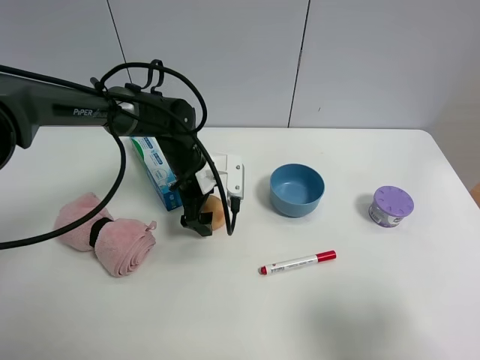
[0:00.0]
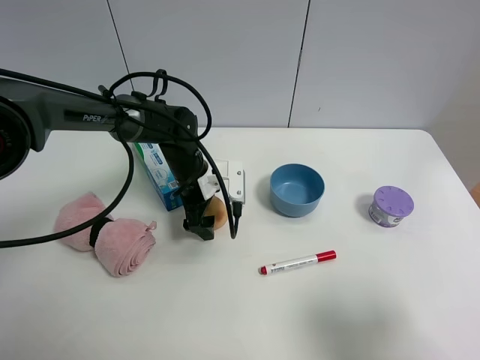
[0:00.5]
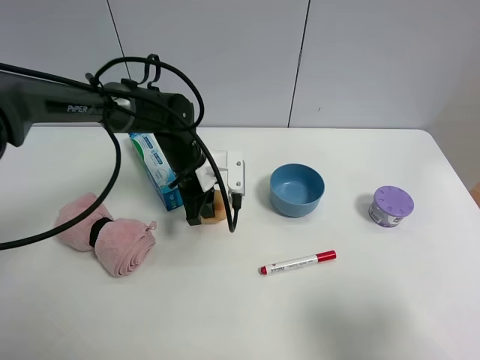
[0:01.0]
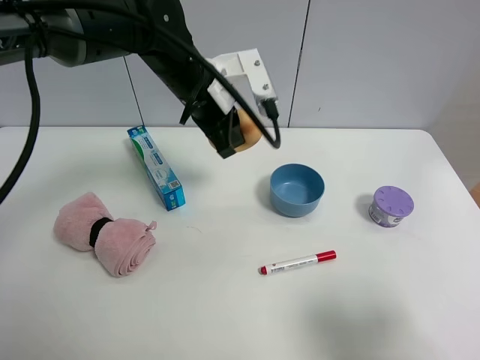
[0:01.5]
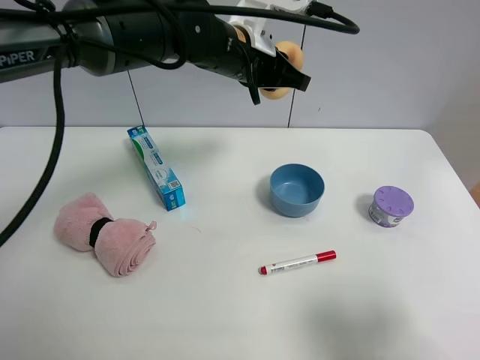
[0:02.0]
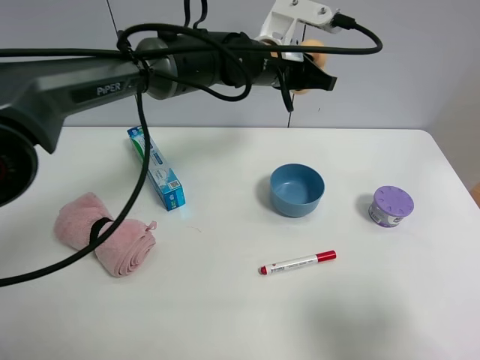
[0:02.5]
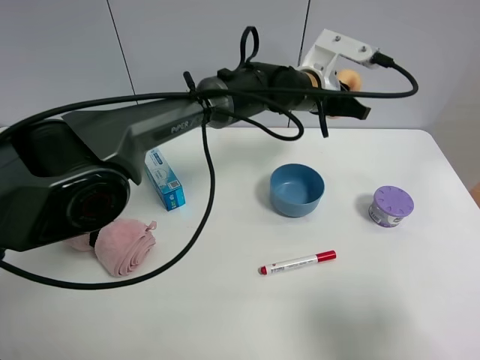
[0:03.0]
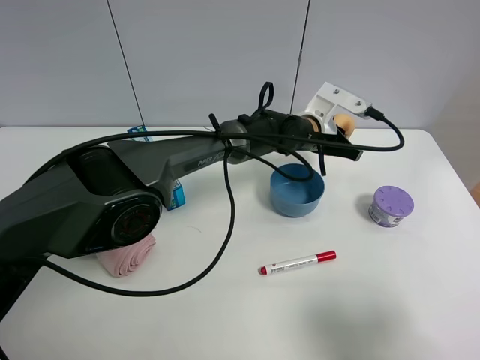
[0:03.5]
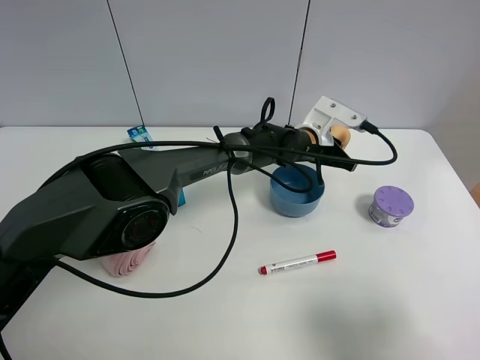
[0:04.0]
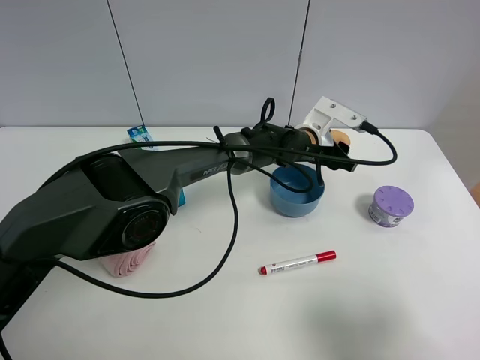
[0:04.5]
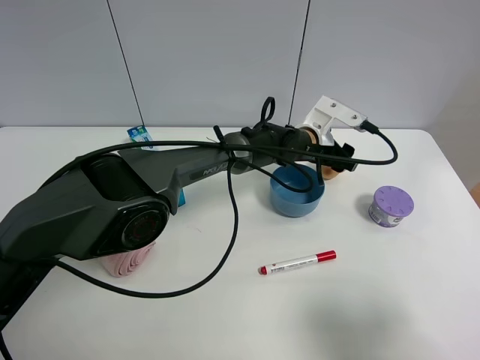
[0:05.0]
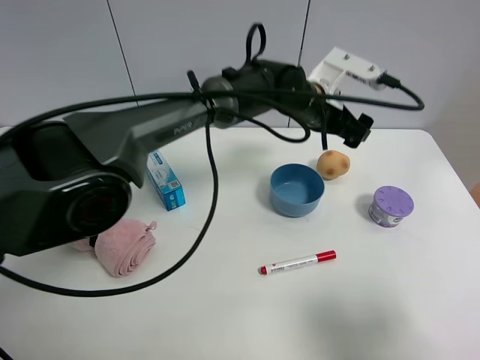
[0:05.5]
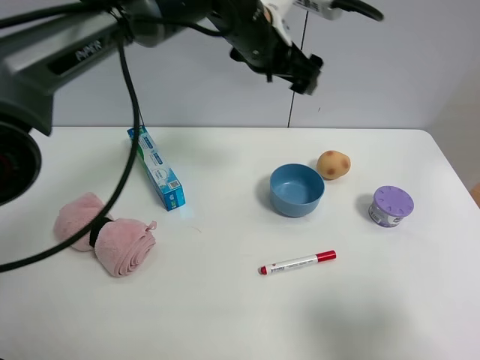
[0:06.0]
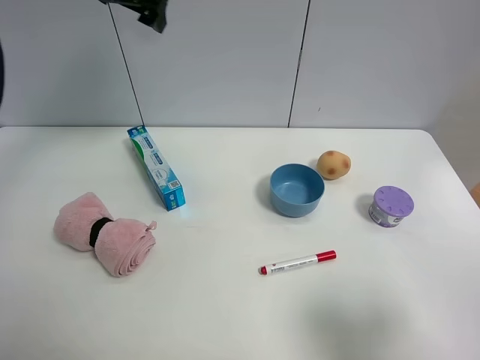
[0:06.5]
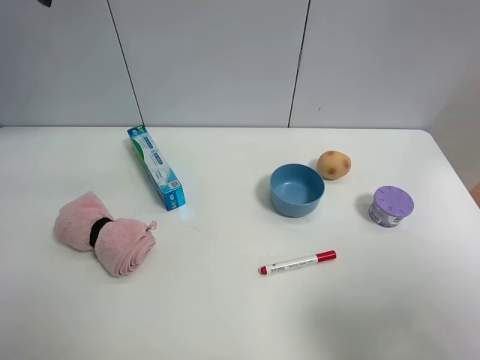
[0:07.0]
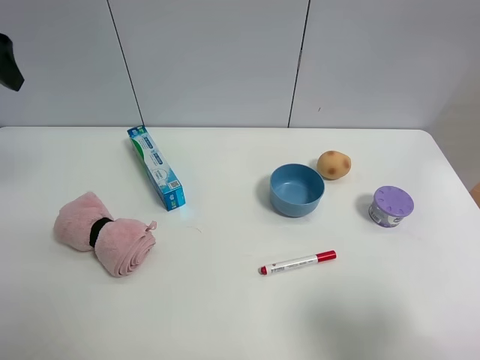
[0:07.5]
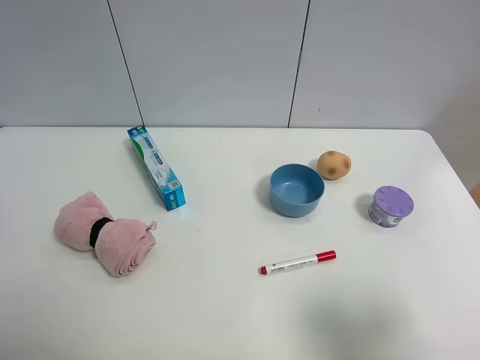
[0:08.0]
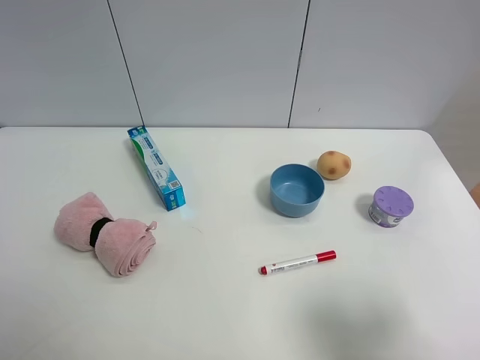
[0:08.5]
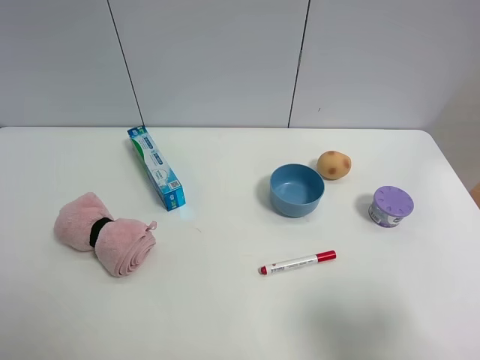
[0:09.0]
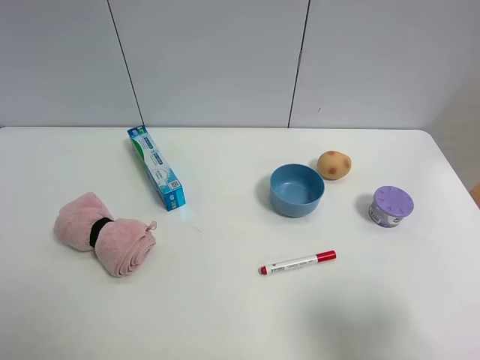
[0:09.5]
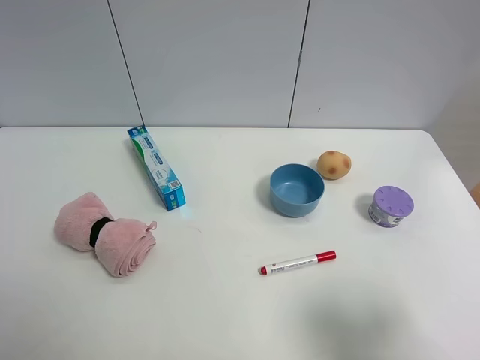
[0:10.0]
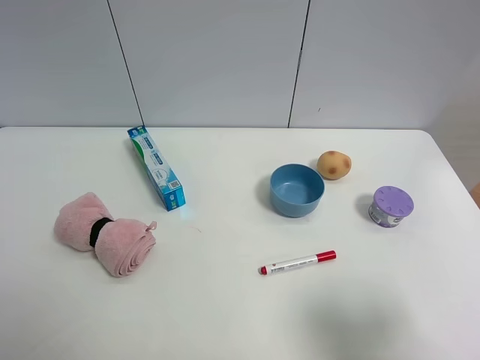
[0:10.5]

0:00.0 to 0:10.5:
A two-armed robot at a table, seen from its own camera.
Task of the whole recording: the gripper move the object.
Step, 0:01.0 to 0:04.5: Place the egg yolk pastry on the table with the left gripper.
0:00.0 to 0:02.0: The left gripper shifts some 20 cm upward and to the right, and closes its fingers.
0:02.0 to 0:04.0: The left gripper heads downward and to the right, covering roughly 20 cm.
0:04.0 to 0:06.5: The left gripper moves to the left and upward, some 40 cm, and opens up.
0:06.5 to 0:08.5: The left gripper goes roughly 40 cm backward.

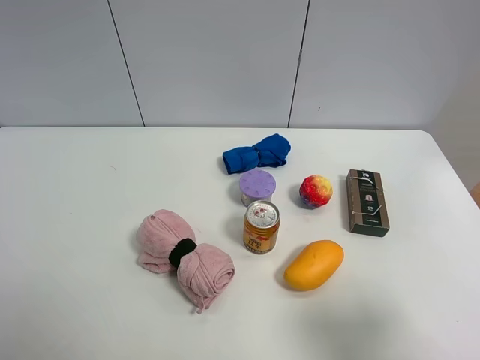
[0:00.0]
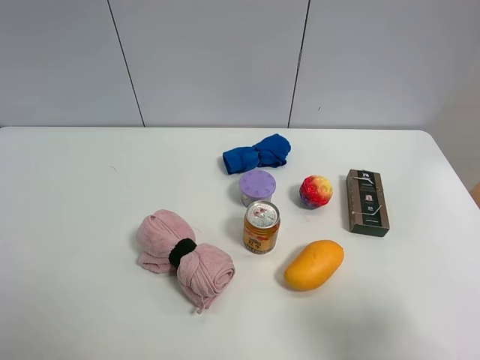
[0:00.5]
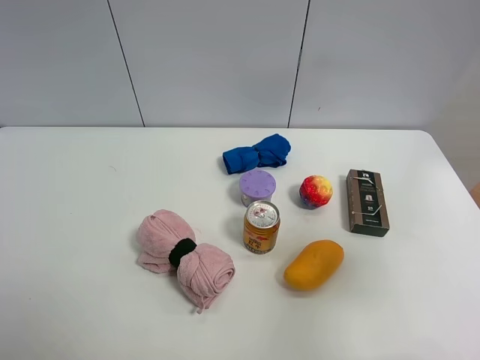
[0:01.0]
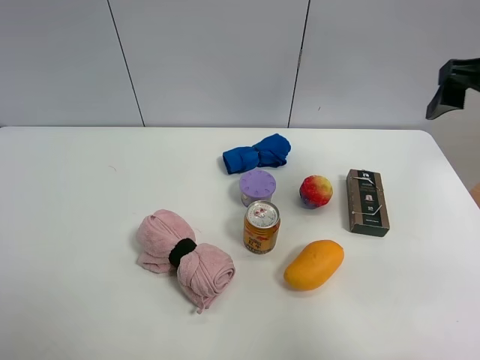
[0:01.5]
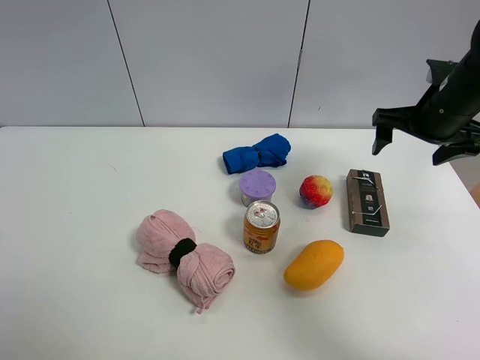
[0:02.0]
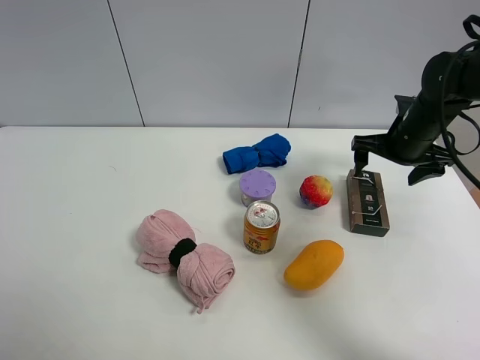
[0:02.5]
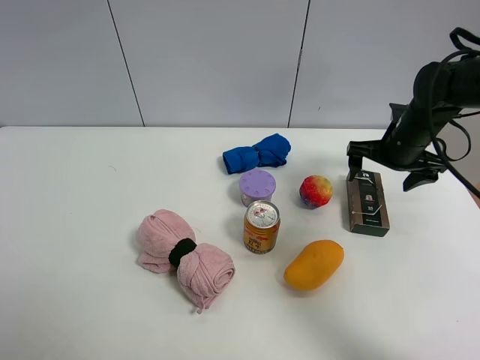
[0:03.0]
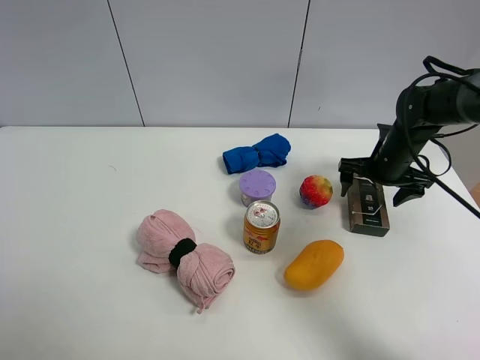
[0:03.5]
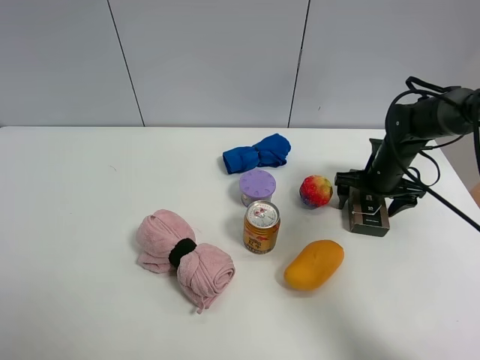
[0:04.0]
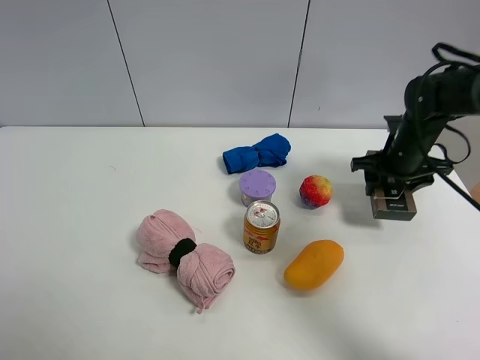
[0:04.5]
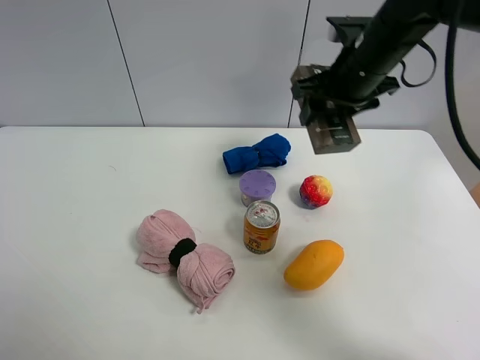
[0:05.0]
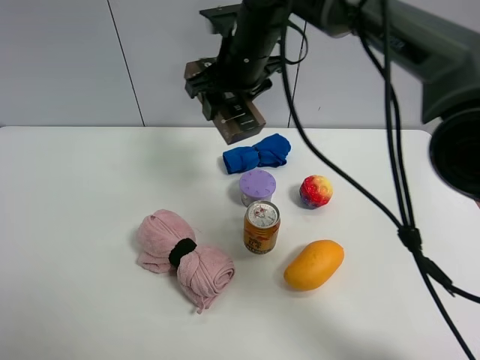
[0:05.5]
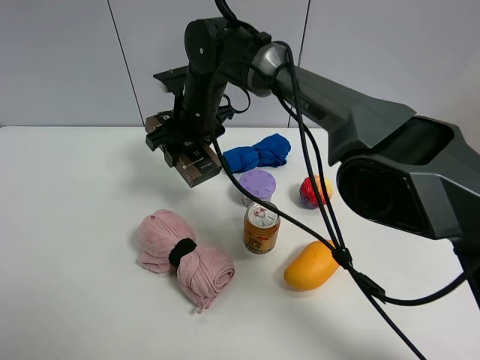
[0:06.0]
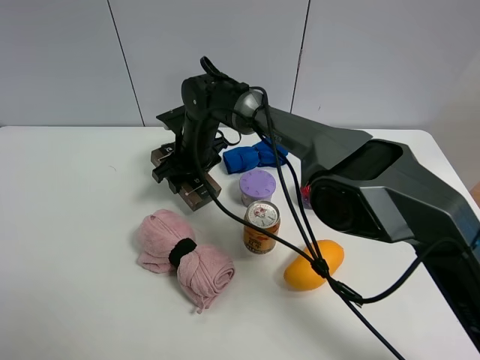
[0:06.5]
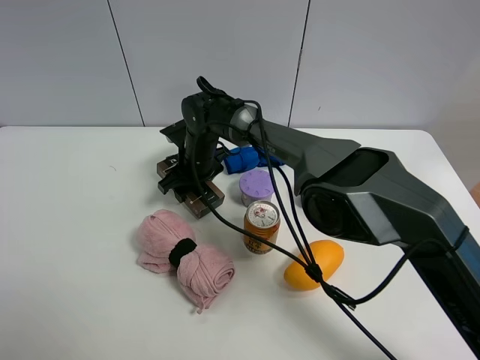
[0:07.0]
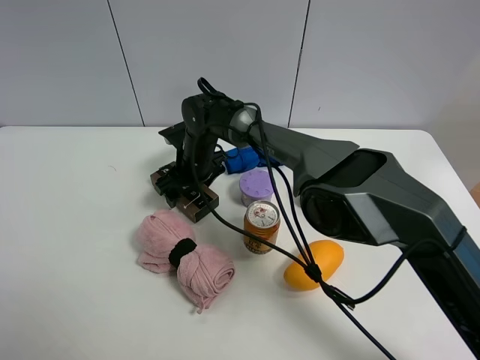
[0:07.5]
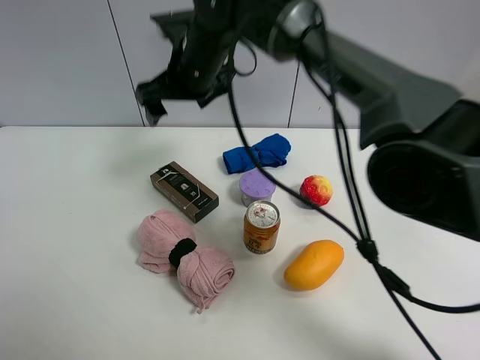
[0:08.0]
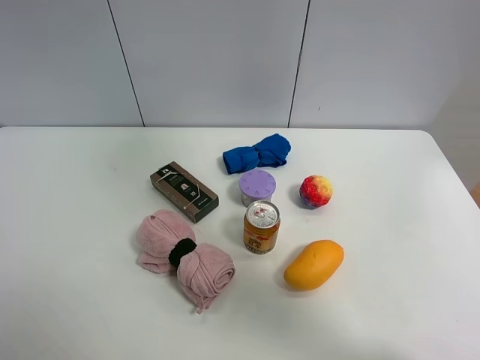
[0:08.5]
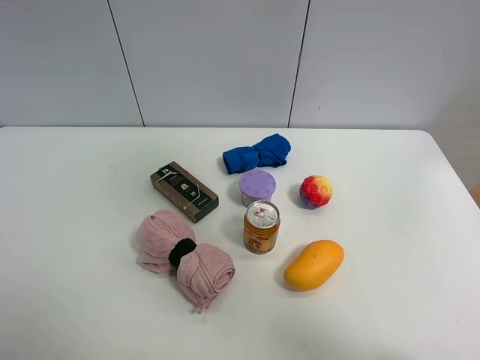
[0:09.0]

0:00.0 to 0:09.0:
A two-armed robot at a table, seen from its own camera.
Task of the whole recording: the gripper move the object.
Step, 0:00.0 to 0:04.0: Grasp the Luckin Coffee box with the right gripper.
Step, 0:04.5 to 0:07.5: Place the Luckin Coffee box on the table with the right gripper.
0:00.0 to 0:02.0: The right gripper travels forward by about 35 cm.
0:02.0 to 0:04.5: The right gripper goes roughly 5 cm downward, and closes.
0:04.5 to 0:07.0: The right gripper moves to the left, approximately 35 cm.
0:07.0 to 0:09.0: The right gripper shifts about 60 cm upward, to the right and backward, and opens up.

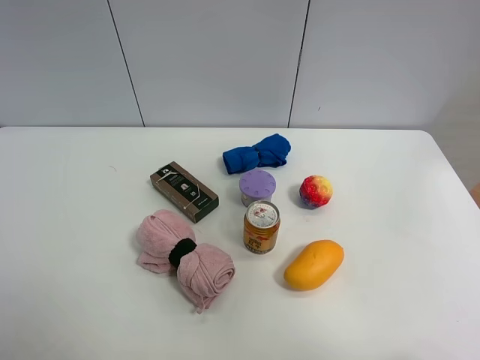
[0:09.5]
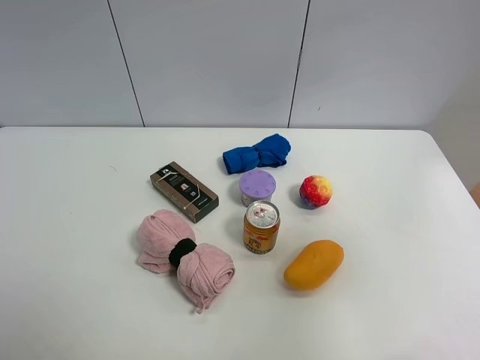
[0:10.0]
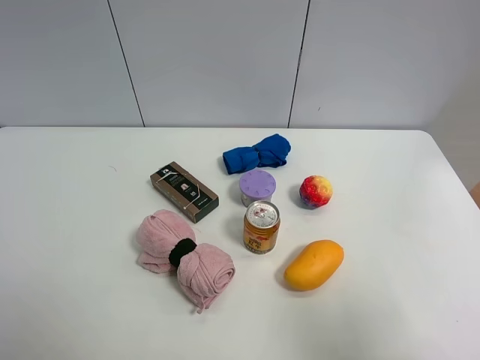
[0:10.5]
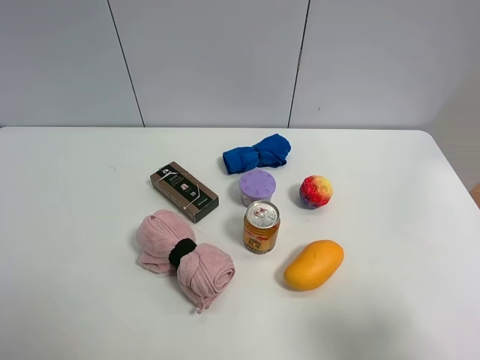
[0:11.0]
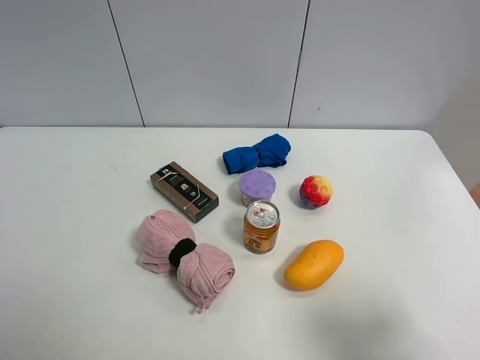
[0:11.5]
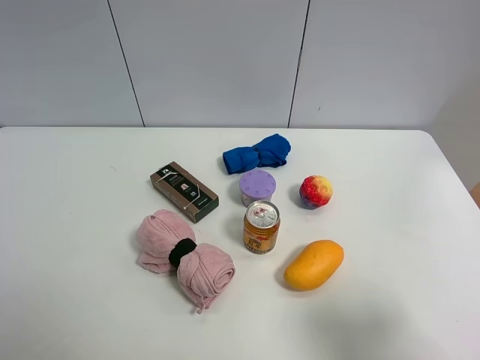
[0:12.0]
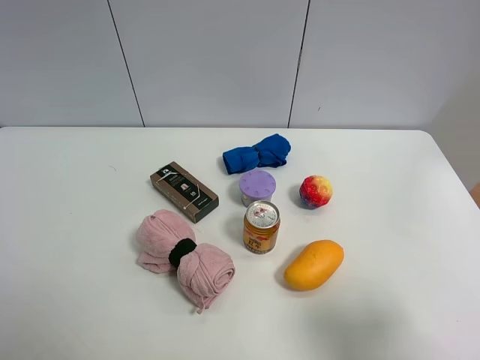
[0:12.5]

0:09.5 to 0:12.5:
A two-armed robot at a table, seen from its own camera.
Task of the whole recording: the gripper move the object.
0:09.5 to 0:11.0: The right gripper travels downward by approximately 30 cm.

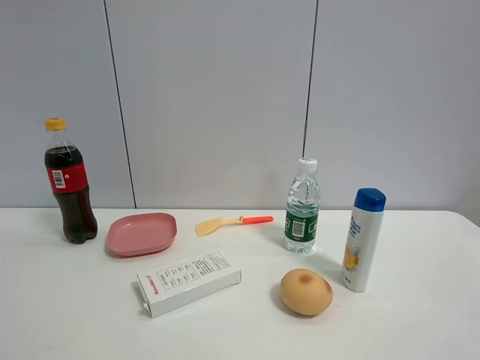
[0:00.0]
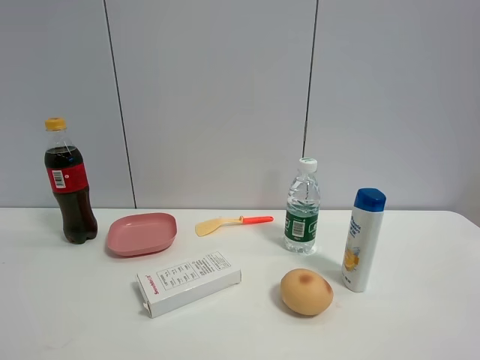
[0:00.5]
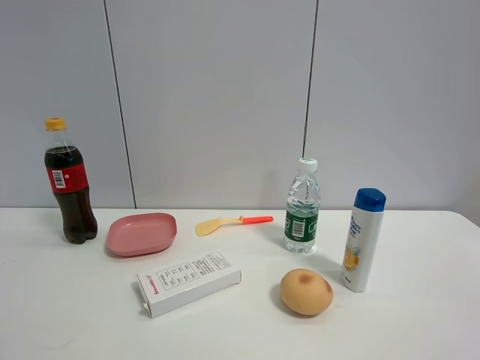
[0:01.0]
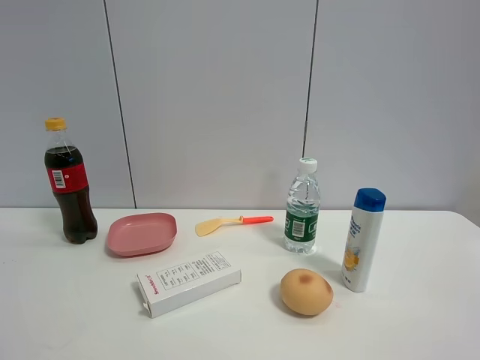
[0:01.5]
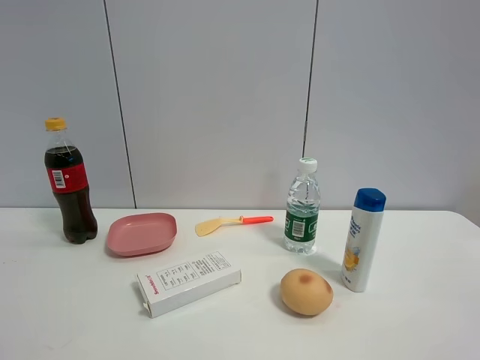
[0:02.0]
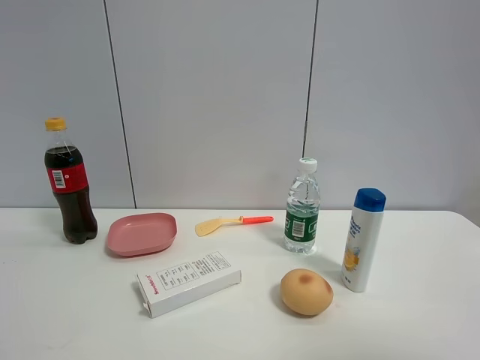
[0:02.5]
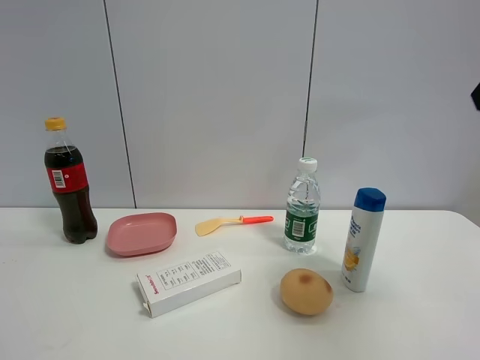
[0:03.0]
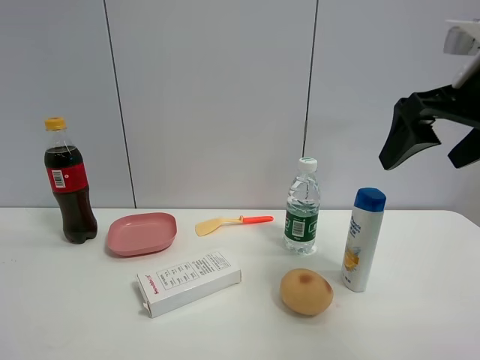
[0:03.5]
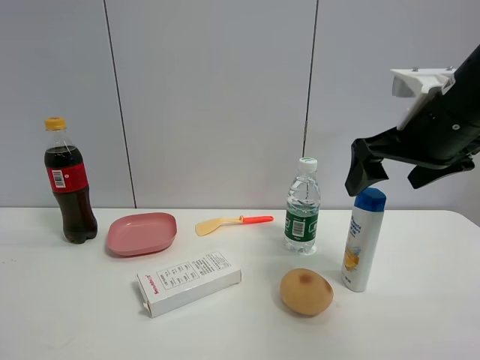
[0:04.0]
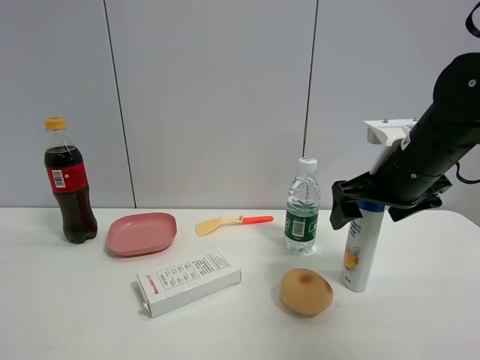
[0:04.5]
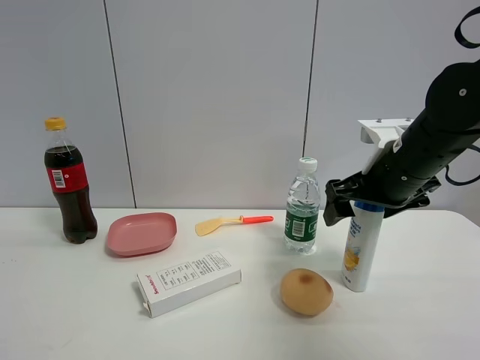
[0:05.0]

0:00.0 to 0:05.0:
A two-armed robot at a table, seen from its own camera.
Task of the whole recording: the gripper move the object.
0:02.5 to 0:05.0: The right gripper goes approximately 35 cm forward and downward.
